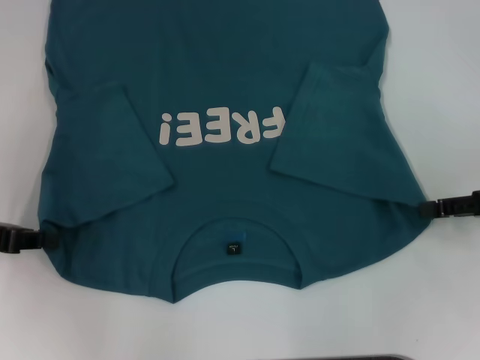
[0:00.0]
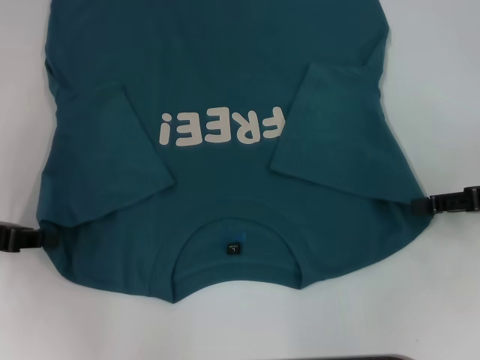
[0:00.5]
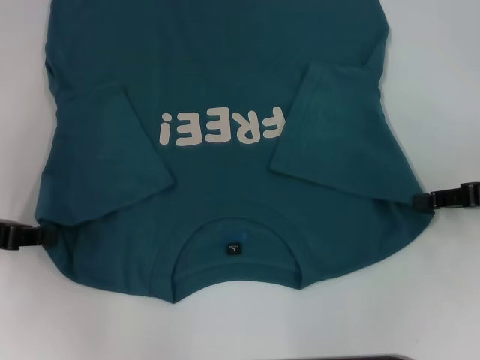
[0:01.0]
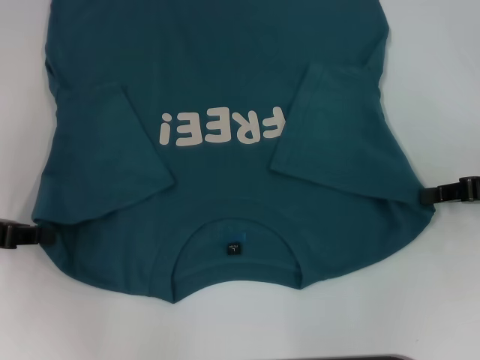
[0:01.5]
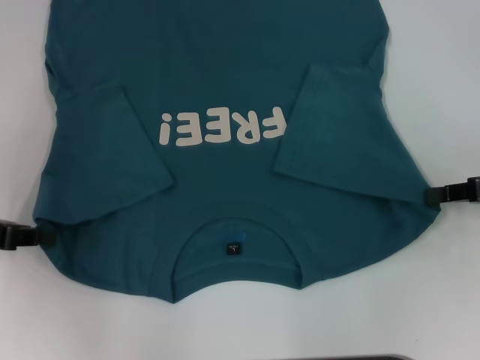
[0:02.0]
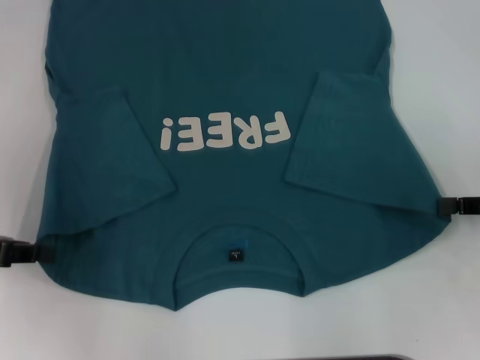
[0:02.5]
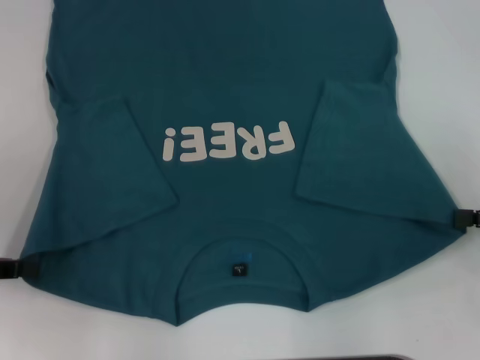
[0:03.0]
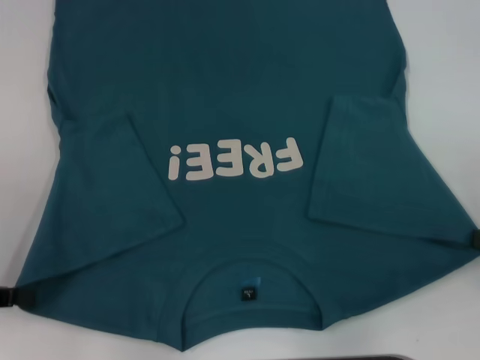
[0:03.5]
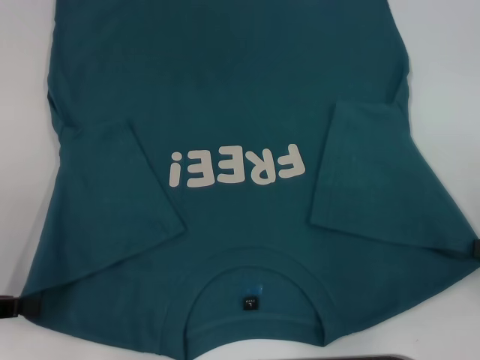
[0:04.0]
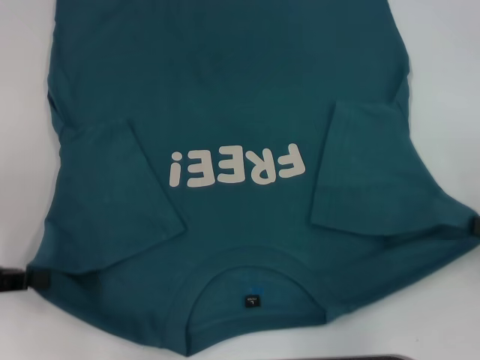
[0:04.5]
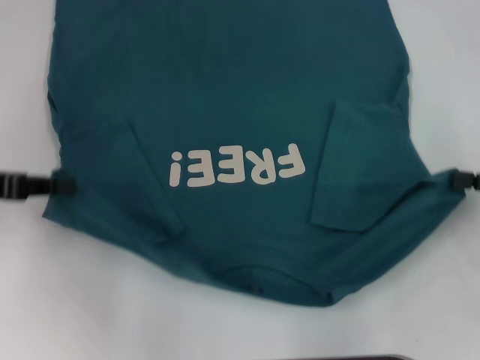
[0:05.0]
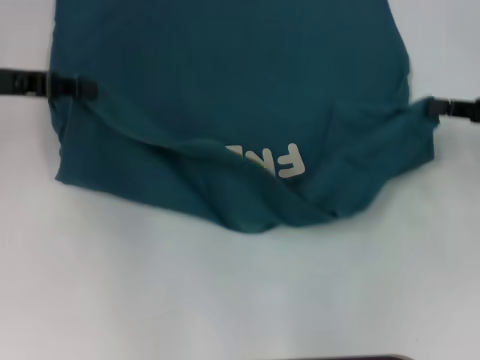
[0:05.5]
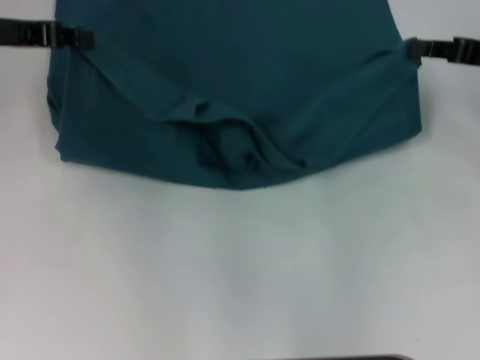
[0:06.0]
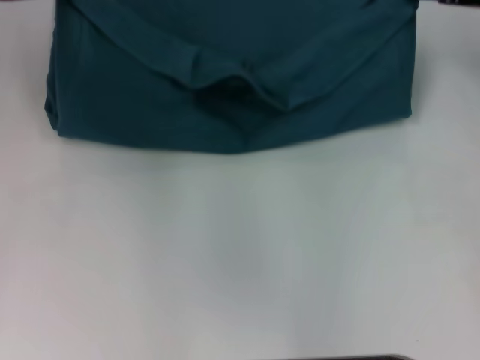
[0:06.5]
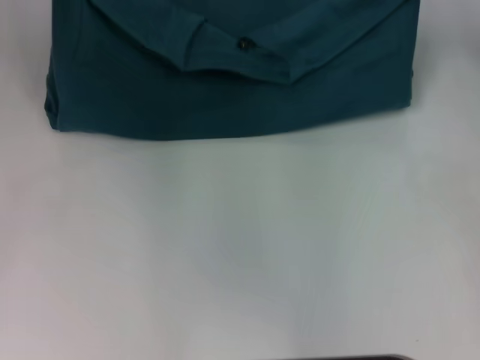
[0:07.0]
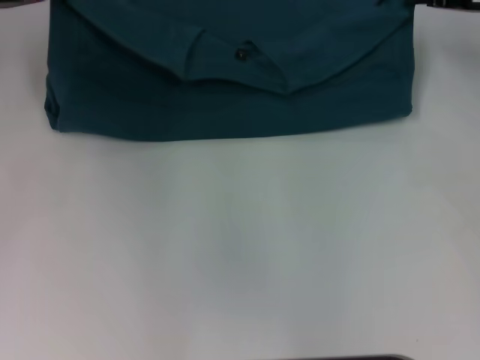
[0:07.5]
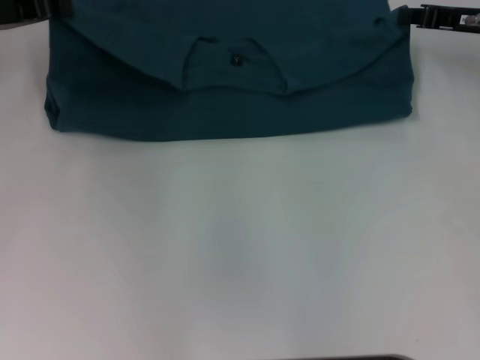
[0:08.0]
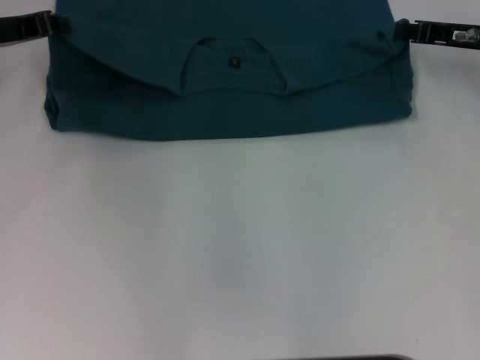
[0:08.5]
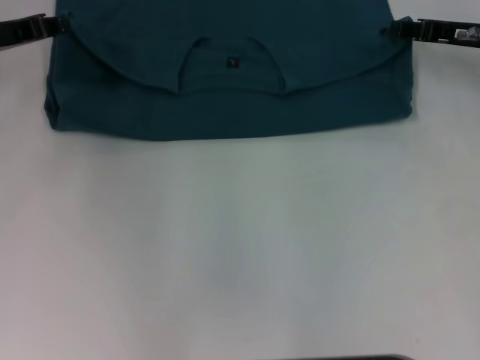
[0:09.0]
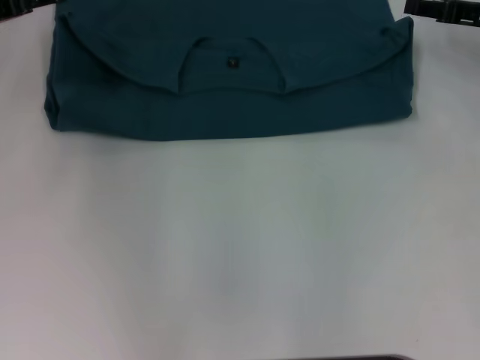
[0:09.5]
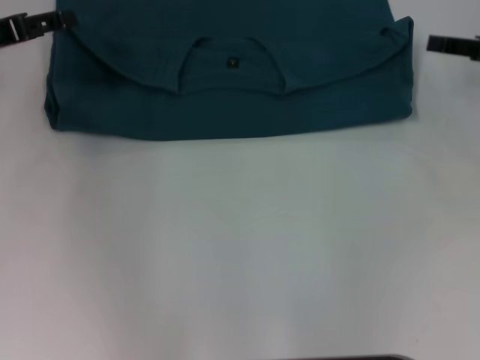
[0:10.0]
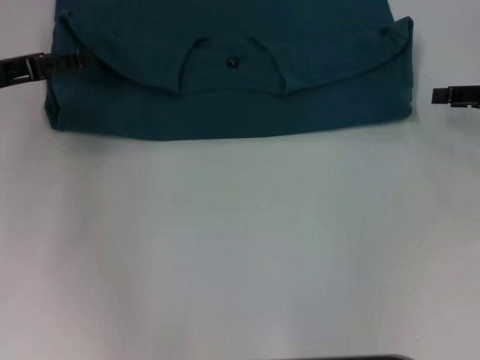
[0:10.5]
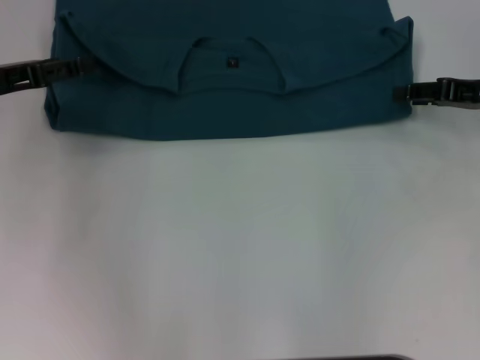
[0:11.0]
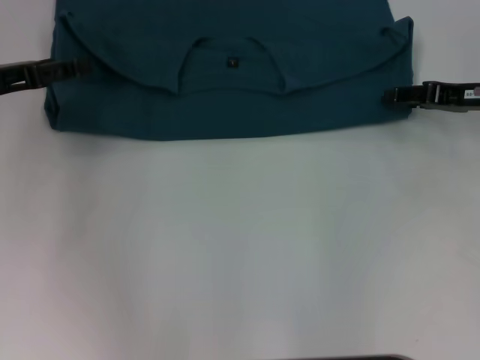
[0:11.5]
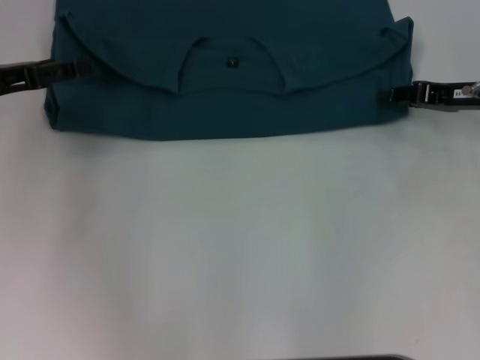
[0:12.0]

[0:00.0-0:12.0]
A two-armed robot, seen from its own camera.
Step, 0:00.0 to 0:02.0: Grab the bottom right corner with your right hand.
Step, 0:02.5 to 0:09.0: Fold the clothes to the left.
Step, 0:02.5 to 0:09.0: Fold the clothes to the right.
0:00.0 to 0:02.0: The right gripper closes up.
0:02.0 to 0:04.0: The grippers both shift backward by some 10 cm.
0:04.0 to 0:06.0: The left gripper heads forward and upward, covering about 20 cm; the right gripper is displaced forward by roughly 15 cm.
0:06.0 to 0:08.0: The right gripper travels forward by approximately 5 cm.
0:08.0 to 0:10.0: The left gripper heads backward, covering approximately 5 cm, and opens, while the right gripper goes about 5 cm backward and to the right, and opens.
0:10.0 to 0:12.0: The right gripper goes some 5 cm to the left.

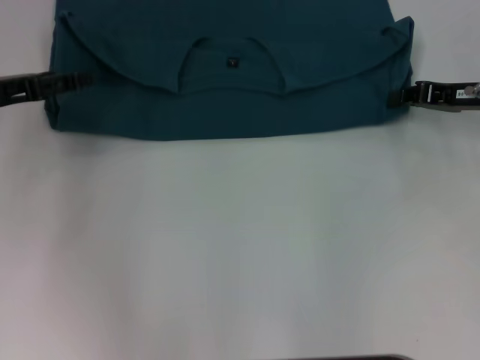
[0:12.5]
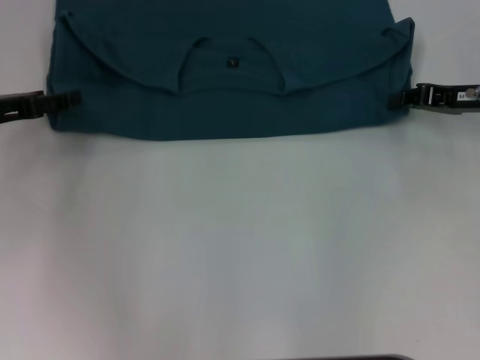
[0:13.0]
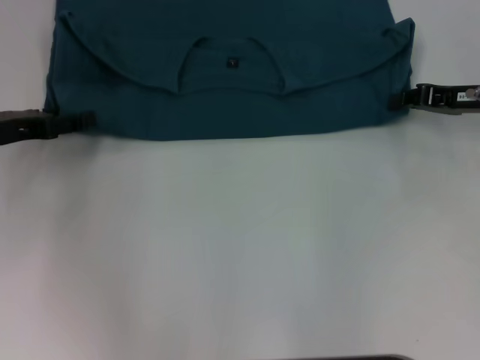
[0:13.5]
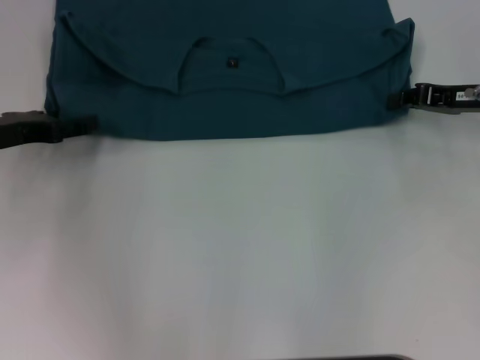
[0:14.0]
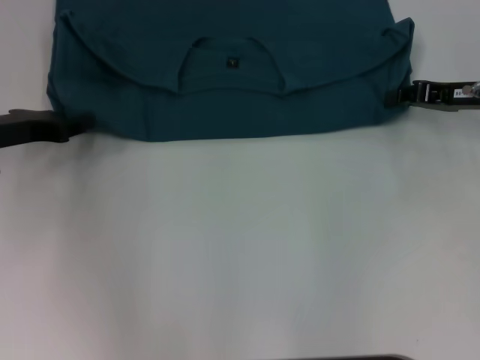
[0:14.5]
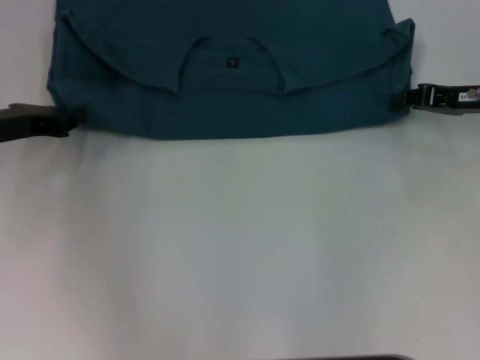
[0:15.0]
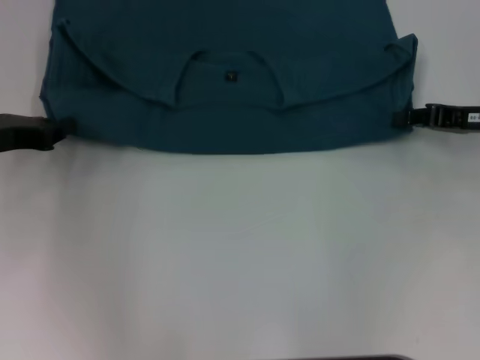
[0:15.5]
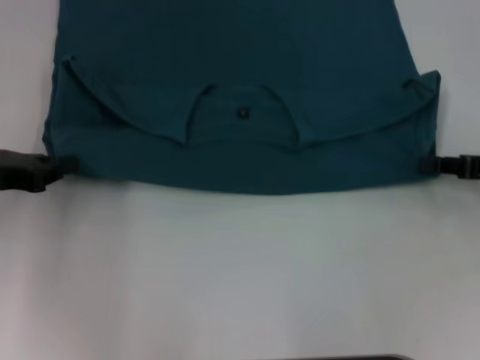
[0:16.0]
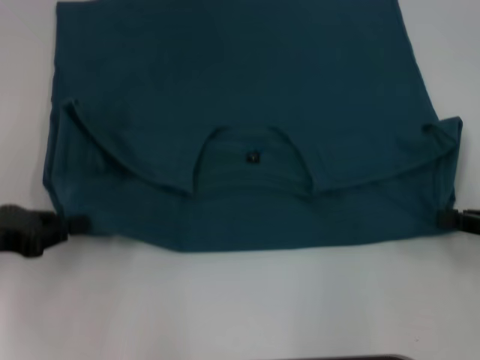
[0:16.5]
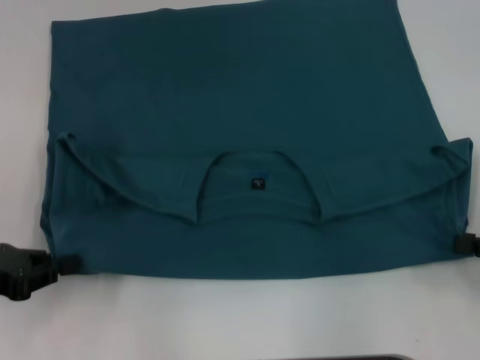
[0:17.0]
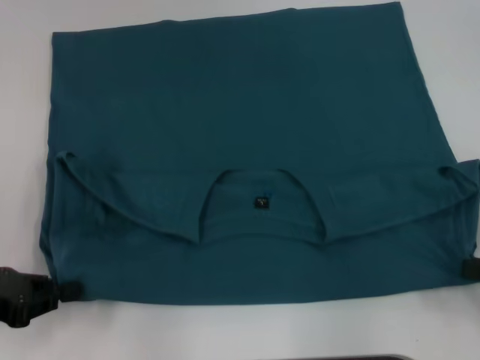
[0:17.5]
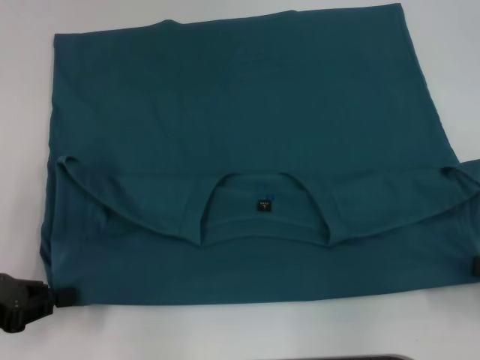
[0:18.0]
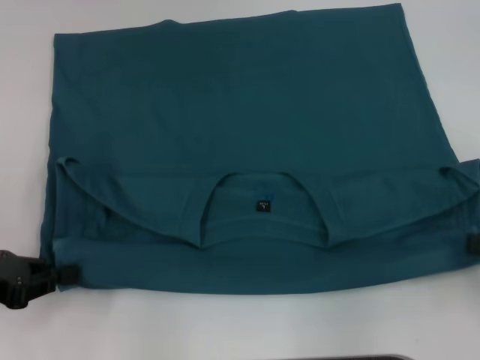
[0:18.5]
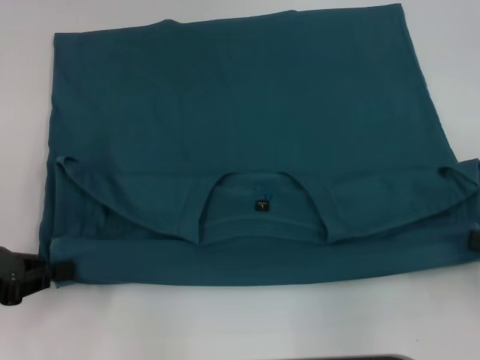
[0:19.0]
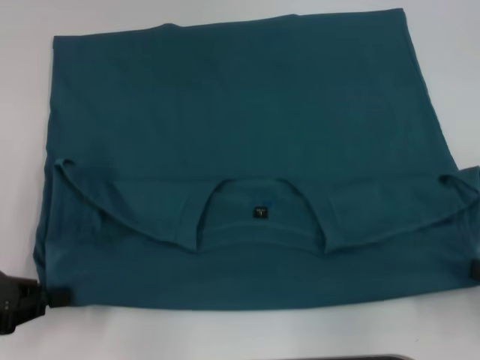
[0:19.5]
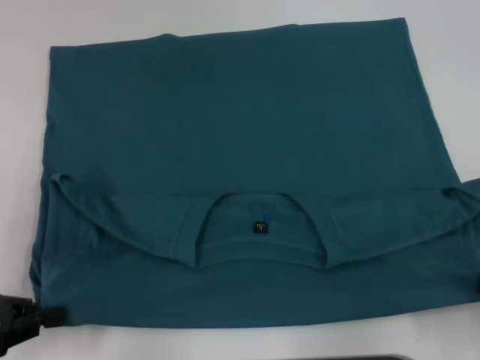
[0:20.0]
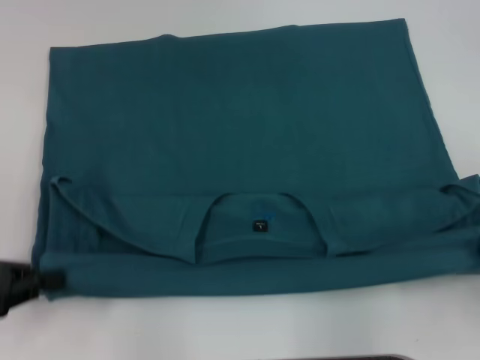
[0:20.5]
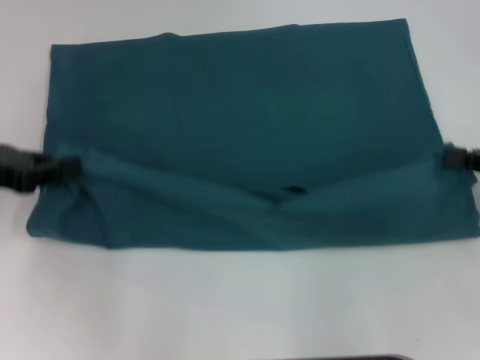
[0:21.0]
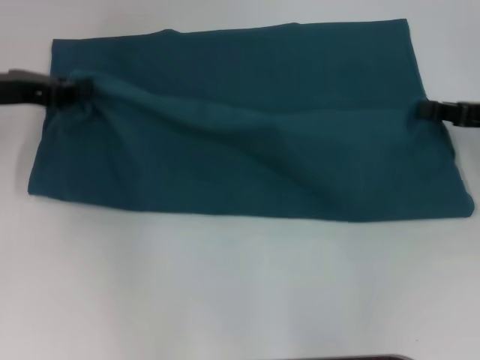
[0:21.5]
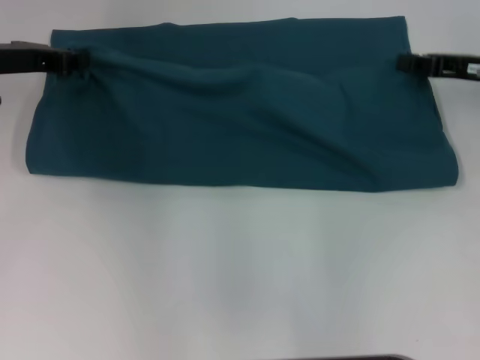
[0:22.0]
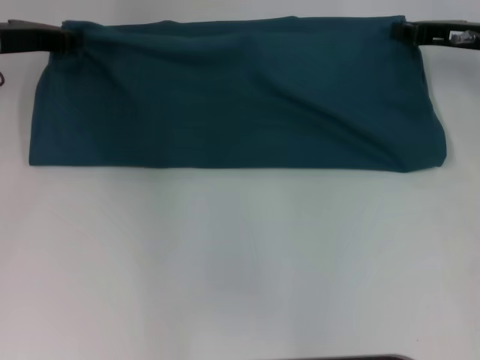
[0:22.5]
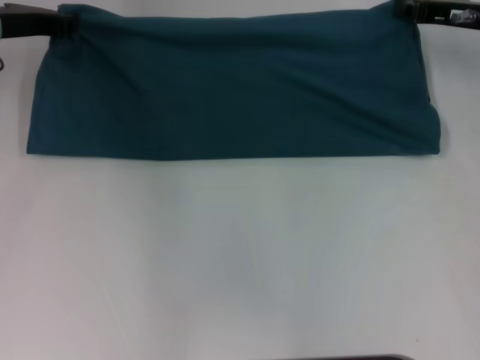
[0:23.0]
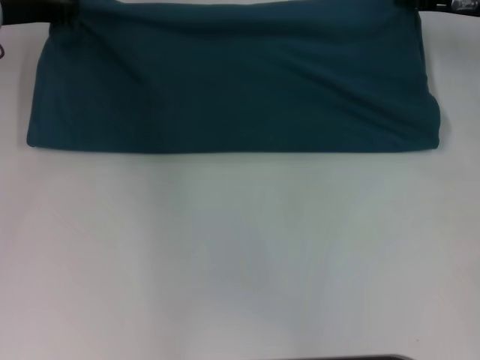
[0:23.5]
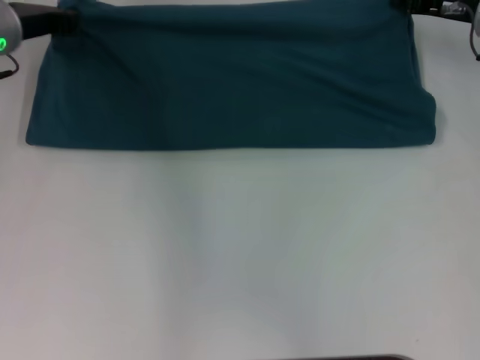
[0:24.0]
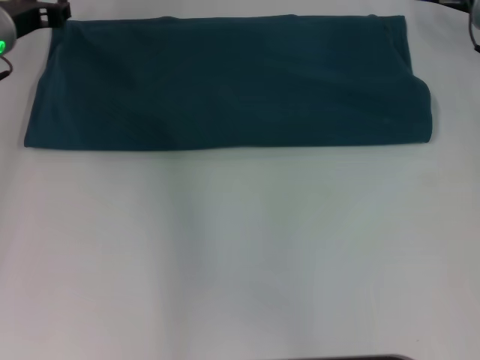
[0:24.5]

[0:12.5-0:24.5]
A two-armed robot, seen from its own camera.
Step, 0:12.5 to 0:18.0: Pull the clothes with your left hand.
Step, 0:12.5 to 0:18.0: Pull the clothes with your right hand.
Step, 0:18.5 to 0:24.0: Fold the clothes to the left.
Step, 0:18.5 to 0:24.0: Fold the clothes to the right.
0:12.5 to 0:14.5: The left gripper closes up.
0:14.5 to 0:16.5: The right gripper heads backward and to the right, covering approximately 15 cm; the left gripper is displaced backward by approximately 10 cm, and closes up.
0:16.5 to 0:18.5: The right gripper moves about 5 cm.
0:18.5 to 0:20.5: The grippers make only small movements.
0:20.5 to 0:22.5: The two grippers go about 25 cm forward.

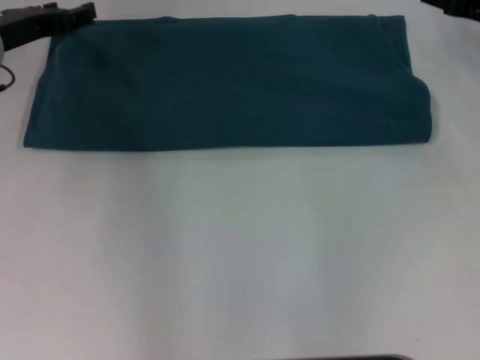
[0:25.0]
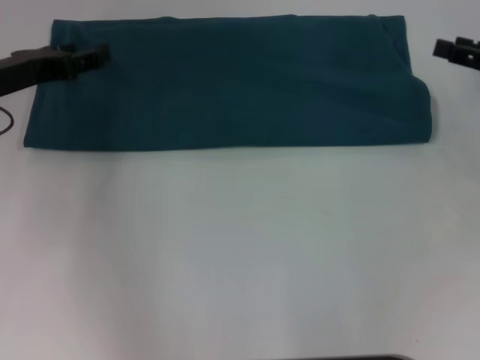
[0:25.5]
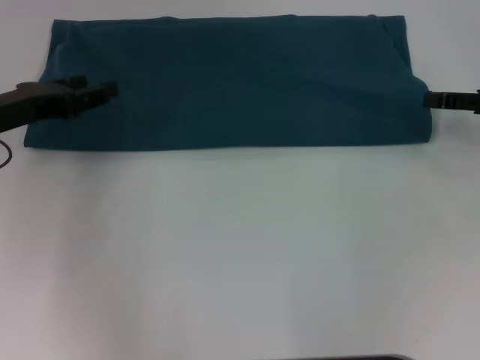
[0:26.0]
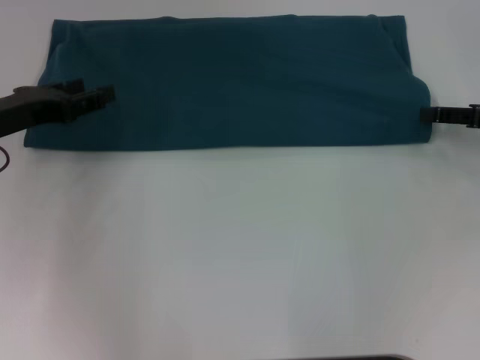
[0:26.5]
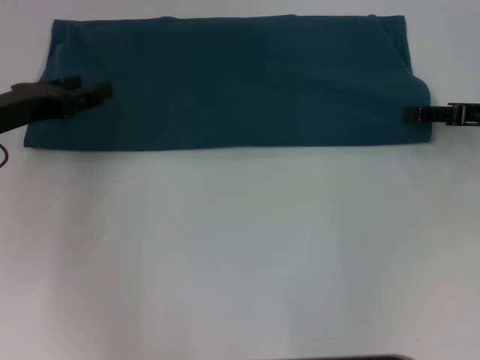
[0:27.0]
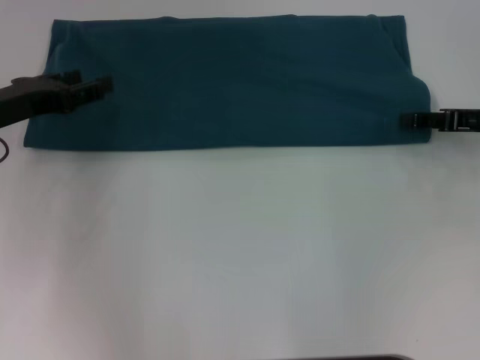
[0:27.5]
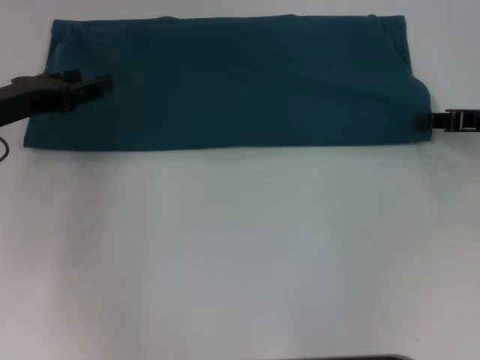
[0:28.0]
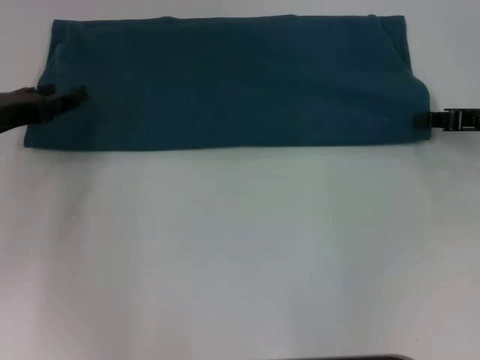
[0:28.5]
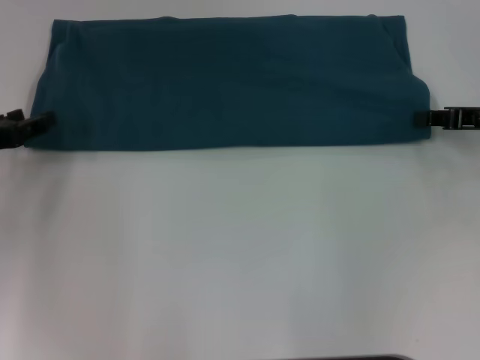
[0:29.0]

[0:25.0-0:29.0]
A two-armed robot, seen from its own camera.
0:25.0 to 0:27.0: Both grippers move backward, approximately 5 cm.
0:27.0 to 0:29.0: The left gripper moves approximately 5 cm.
